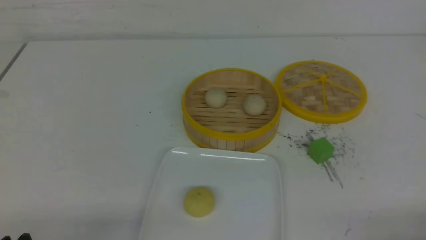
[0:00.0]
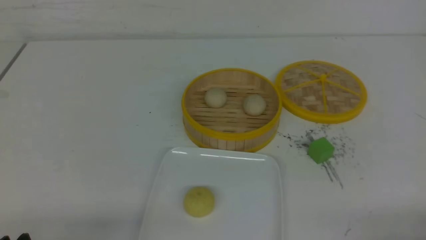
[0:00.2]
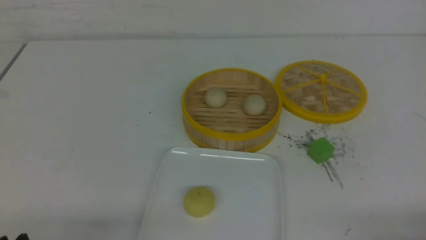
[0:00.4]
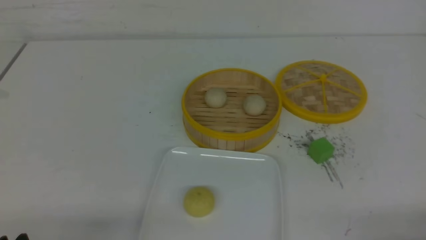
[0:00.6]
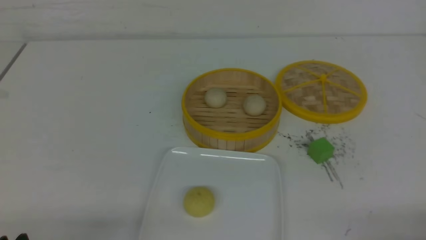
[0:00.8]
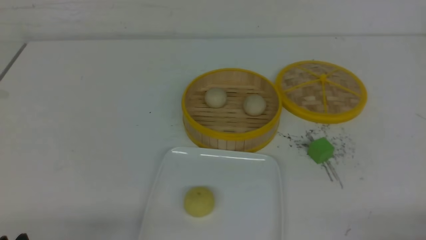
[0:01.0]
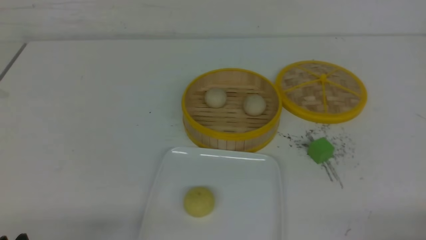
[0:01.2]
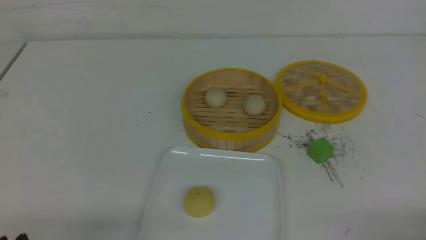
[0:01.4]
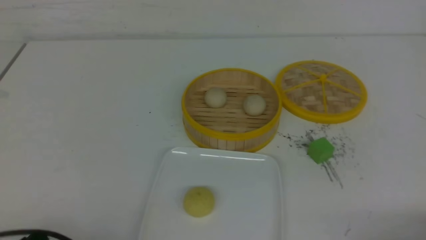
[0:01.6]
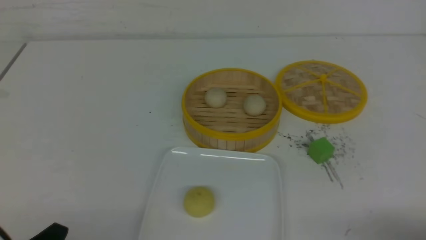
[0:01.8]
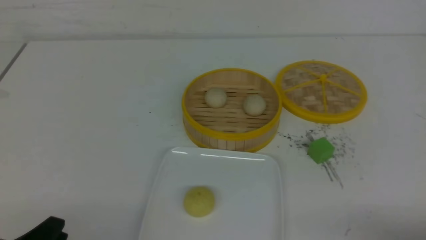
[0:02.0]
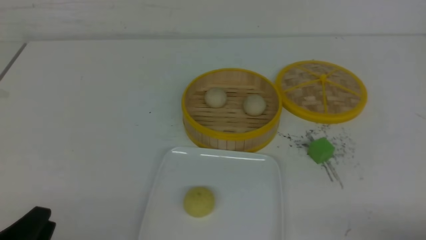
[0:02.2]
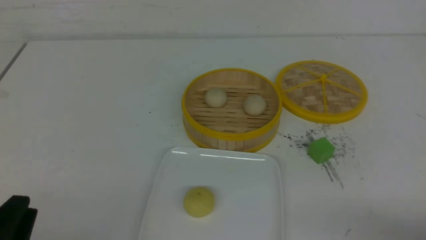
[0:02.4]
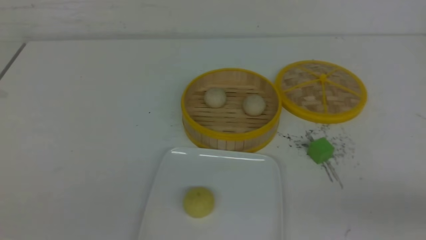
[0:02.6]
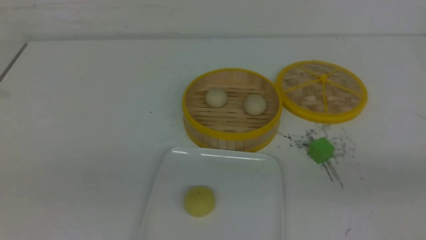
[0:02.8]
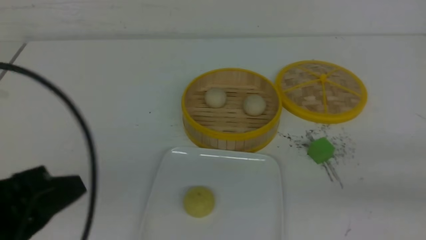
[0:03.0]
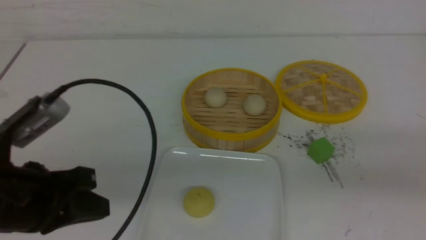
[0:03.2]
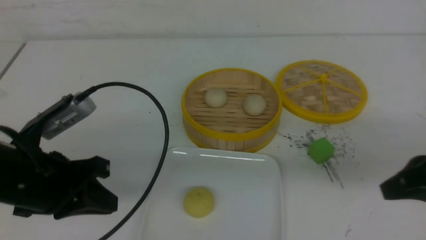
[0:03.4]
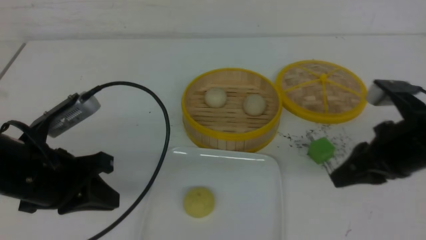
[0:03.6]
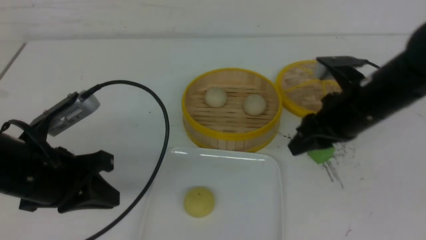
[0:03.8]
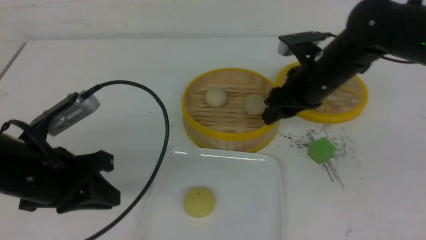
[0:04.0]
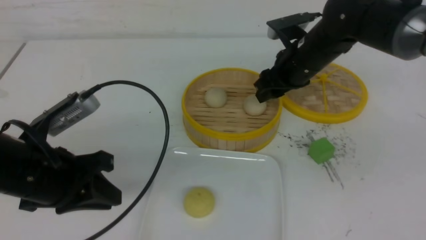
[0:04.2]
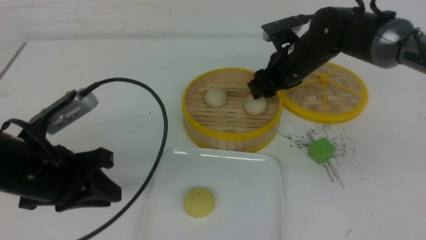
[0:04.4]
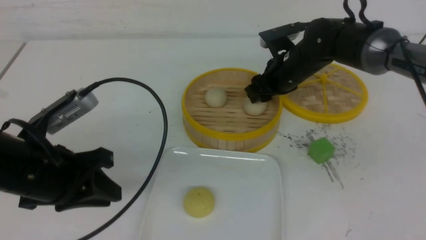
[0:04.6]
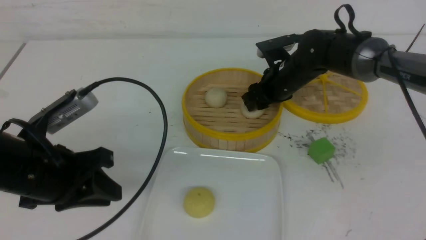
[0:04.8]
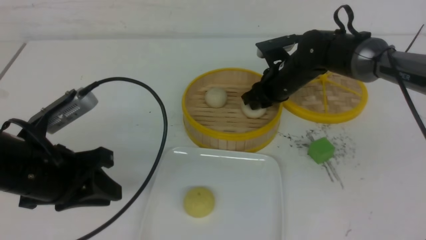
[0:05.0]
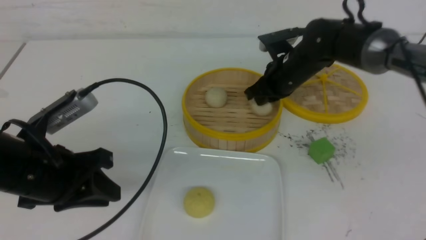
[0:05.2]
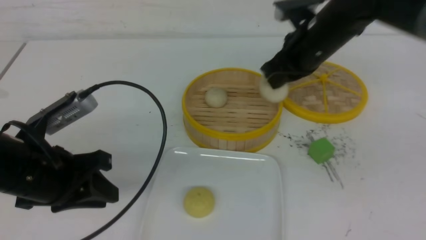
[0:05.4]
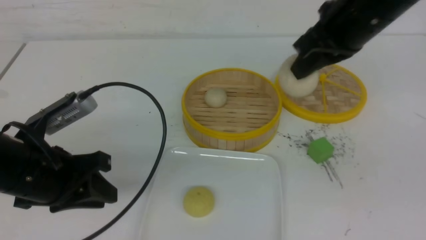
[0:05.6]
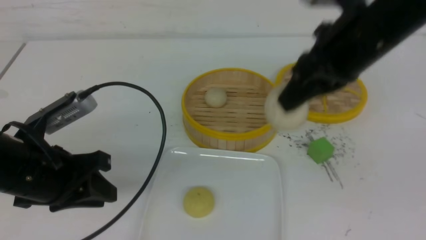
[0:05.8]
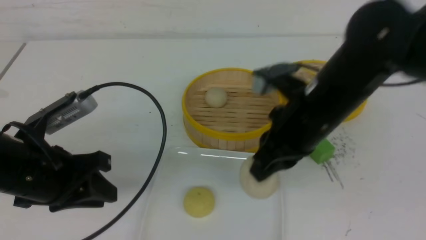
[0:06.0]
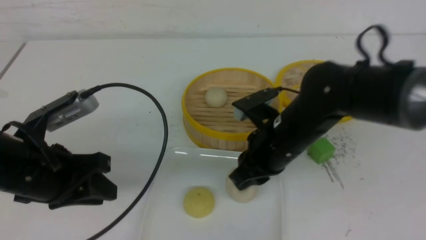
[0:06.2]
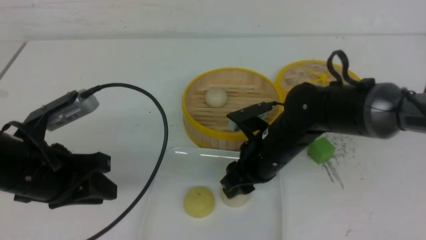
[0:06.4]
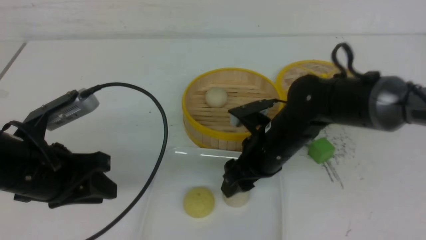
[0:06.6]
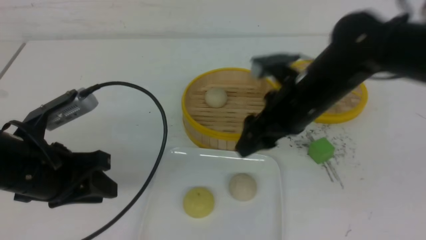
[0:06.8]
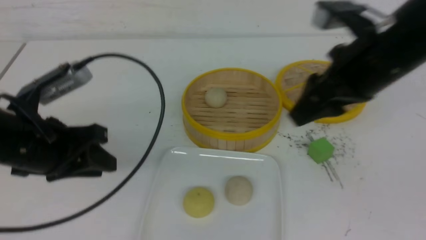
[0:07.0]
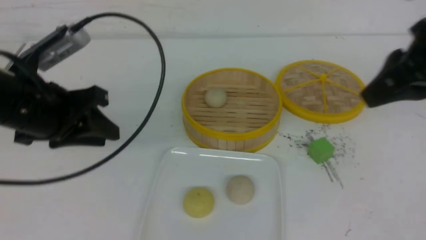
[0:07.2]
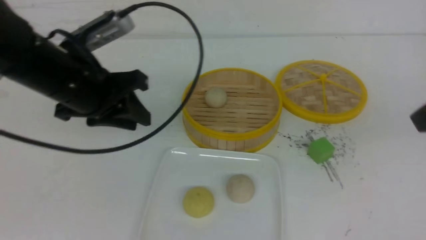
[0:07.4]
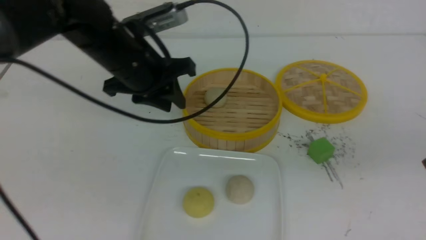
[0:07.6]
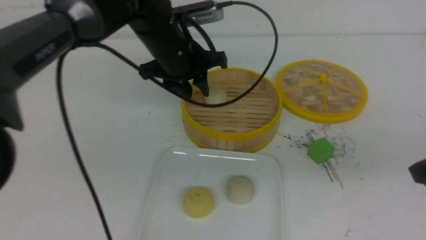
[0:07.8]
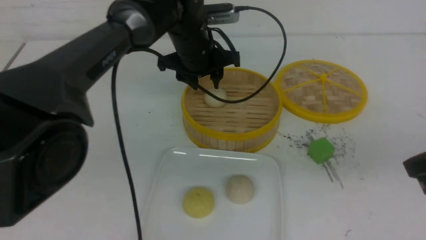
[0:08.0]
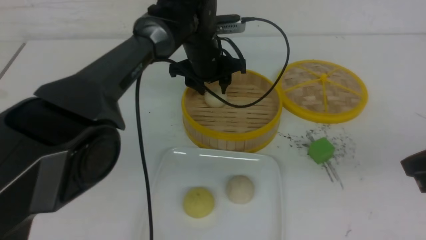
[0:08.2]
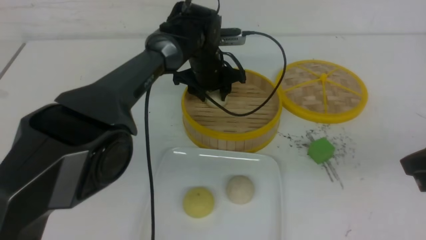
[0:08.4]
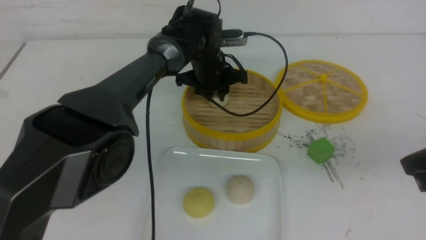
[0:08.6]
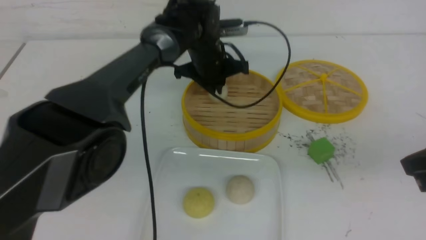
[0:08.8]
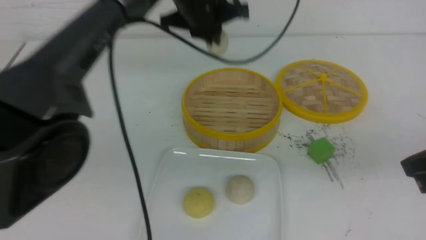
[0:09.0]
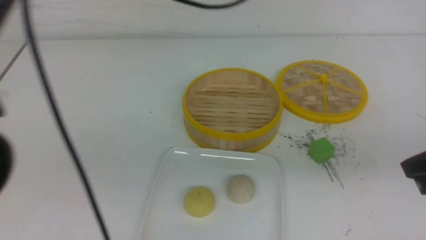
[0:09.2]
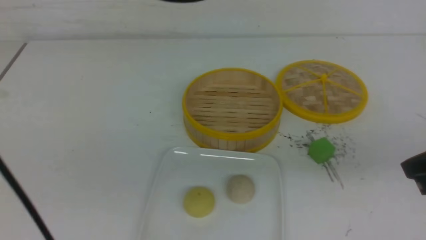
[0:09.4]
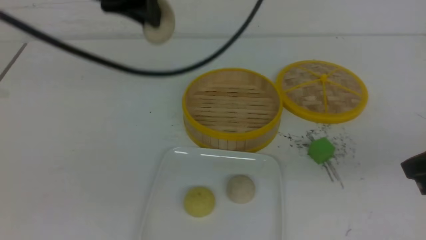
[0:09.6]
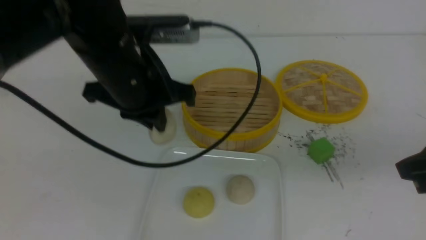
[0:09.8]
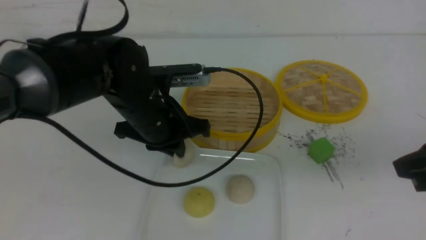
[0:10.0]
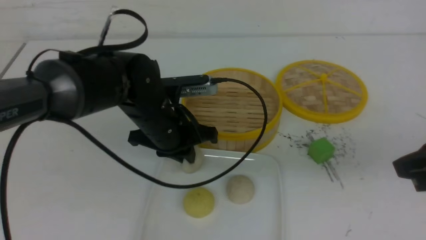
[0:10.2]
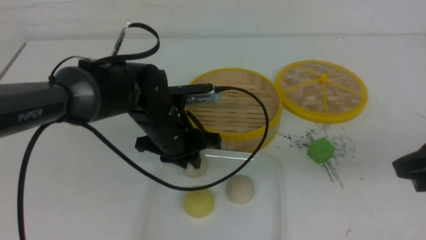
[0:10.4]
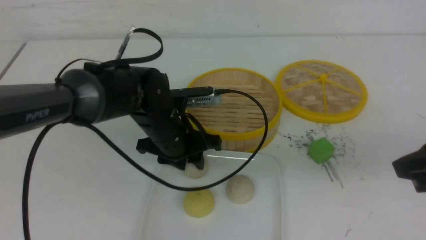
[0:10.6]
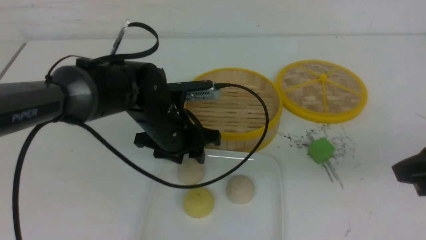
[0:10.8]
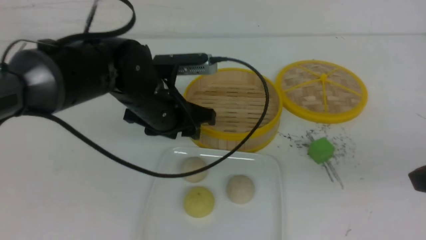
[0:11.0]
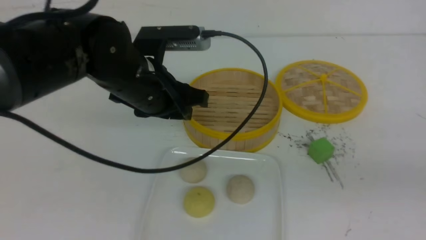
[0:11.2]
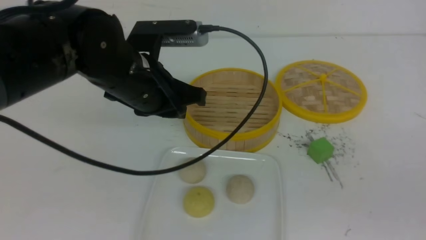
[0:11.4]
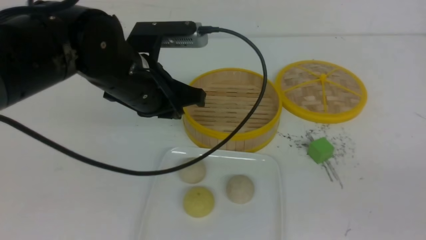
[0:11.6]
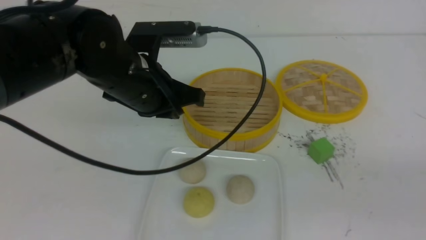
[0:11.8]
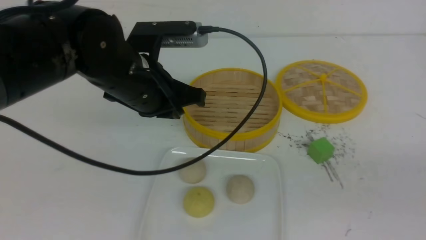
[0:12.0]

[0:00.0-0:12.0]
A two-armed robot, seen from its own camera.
Step, 0:00.0 to 0:04.8: use the right arm to grab the steamed stuffed bun that is closest to it.
Step, 0:05.0 to 0:06.6: use the right arm to put the steamed stuffed bun into the plate.
Step, 0:06.8 to 0:08.8: use the left arm to grab the steamed stuffed bun that is closest to it.
Step, 0:09.0 to 0:10.6: use the left arm to put the steamed stuffed bun into the plate.
0:01.6 to 0:03.0: The two grippers go about 15 cm upward and forward. The left gripper closes its fingers. The right gripper closes.
0:03.0 to 0:04.4: The left gripper heads forward and downward, covering approximately 10 cm, and opens its fingers. Meanwhile the right gripper goes some 35 cm forward and to the left, and opens.
0:04.4 to 0:06.0: The right gripper shifts about 15 cm backward, and closes its fingers.
0:06.0 to 0:07.6: The left gripper heads forward, to the right and upward, covering roughly 20 cm. Meanwhile the right gripper heads to the right, backward and upward, covering roughly 20 cm, and opens, then closes once more.
0:07.6 to 0:09.0: The left gripper heads to the right, upward and forward, covering approximately 10 cm, and closes its fingers.
0:09.0 to 0:10.4: The left gripper moves downward and backward, approximately 20 cm, and opens its fingers.
0:10.4 to 0:12.0: The right gripper goes approximately 15 cm backward and to the right. The left gripper travels upward by approximately 10 cm, and closes up.

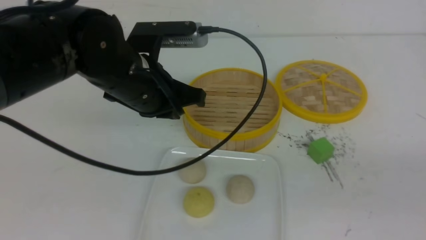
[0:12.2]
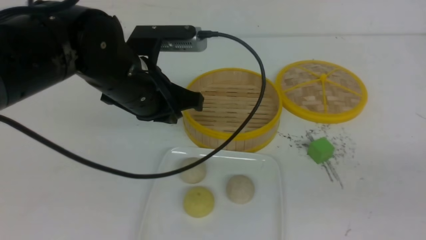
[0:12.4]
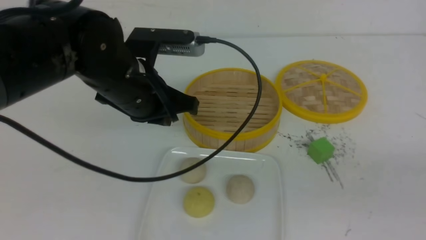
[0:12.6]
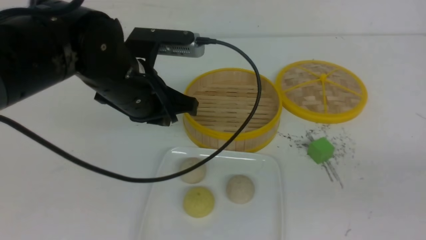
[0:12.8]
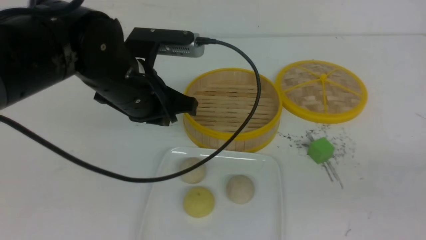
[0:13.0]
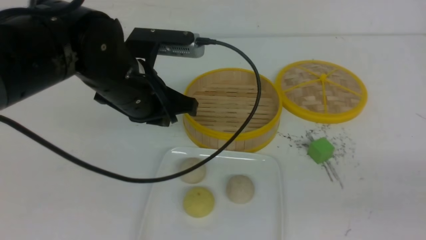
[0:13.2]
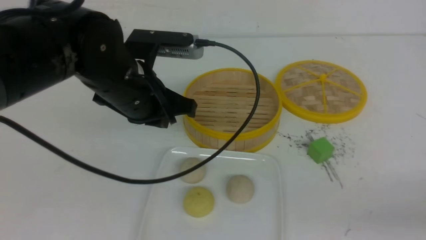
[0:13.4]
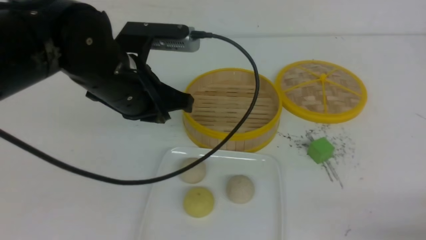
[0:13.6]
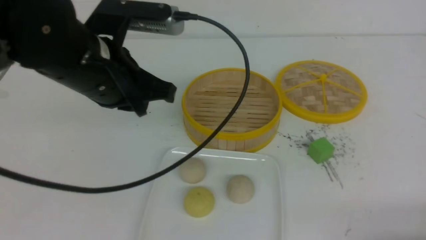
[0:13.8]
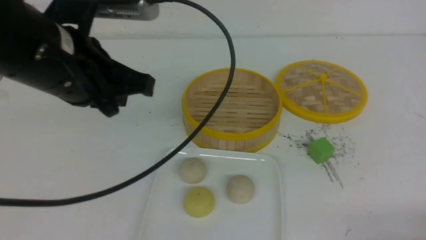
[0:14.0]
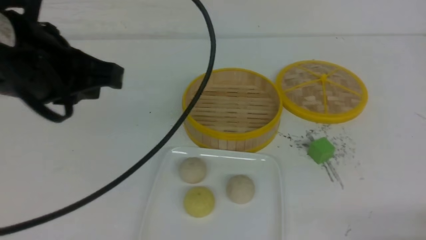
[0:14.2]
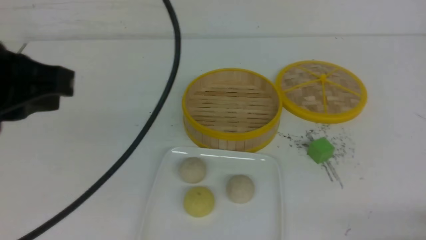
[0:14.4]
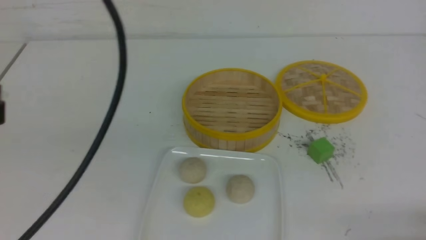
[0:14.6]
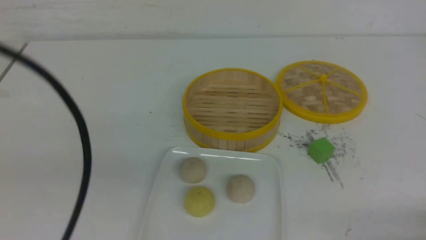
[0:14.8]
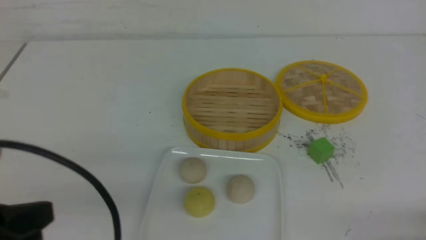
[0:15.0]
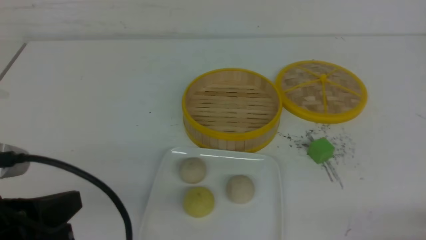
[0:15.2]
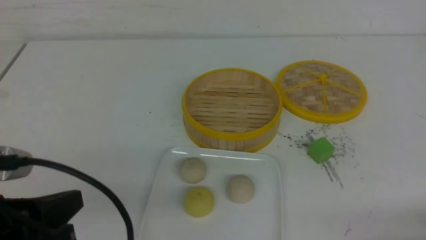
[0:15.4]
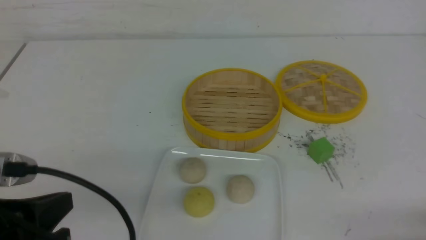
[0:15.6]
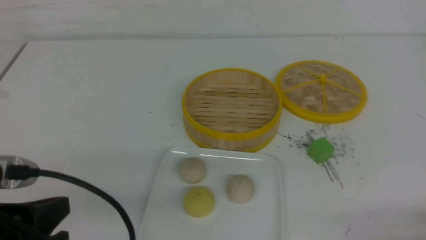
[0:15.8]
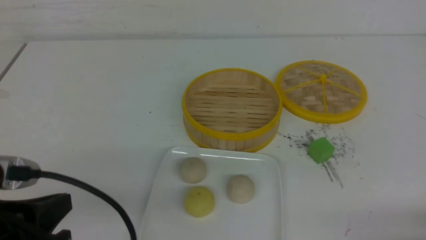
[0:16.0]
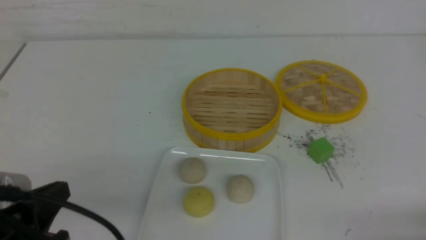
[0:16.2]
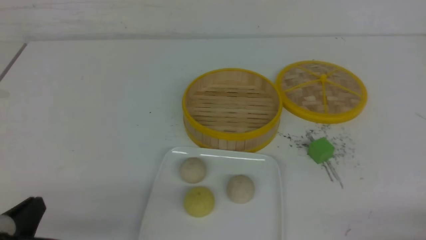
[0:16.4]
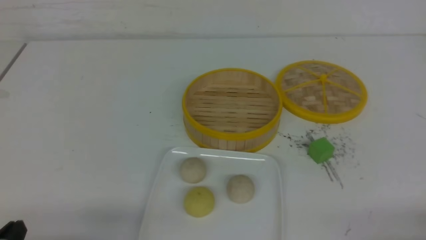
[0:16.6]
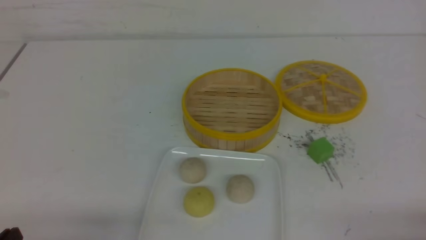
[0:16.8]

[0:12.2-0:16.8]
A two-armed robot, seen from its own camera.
0:12.2 to 0:13.8: The right gripper is displaced downward by approximately 10 cm, while the left gripper ends up roughly 5 cm from where it was.
0:13.8 to 0:15.2: The left gripper goes approximately 20 cm backward and to the left.
0:15.2 to 0:16.8: The left gripper moves downward, approximately 10 cm.
